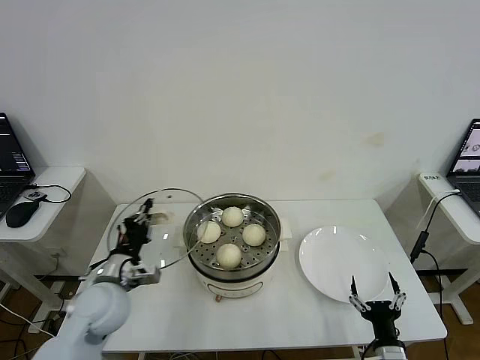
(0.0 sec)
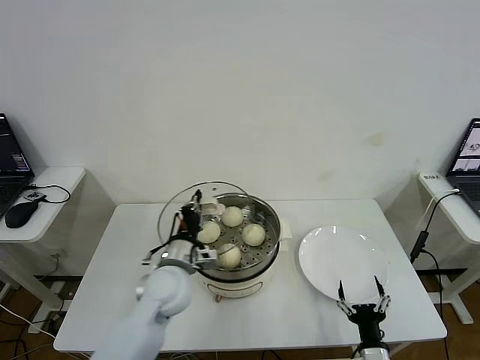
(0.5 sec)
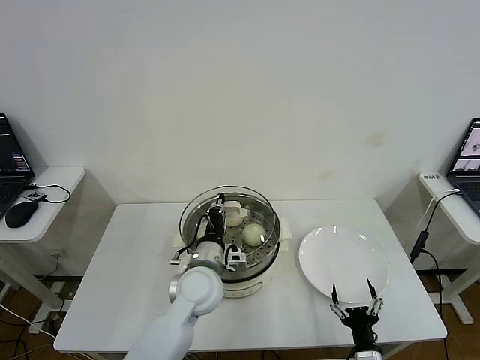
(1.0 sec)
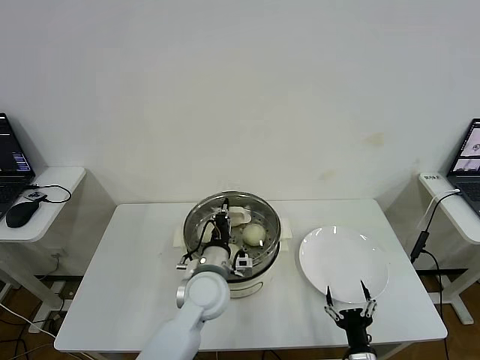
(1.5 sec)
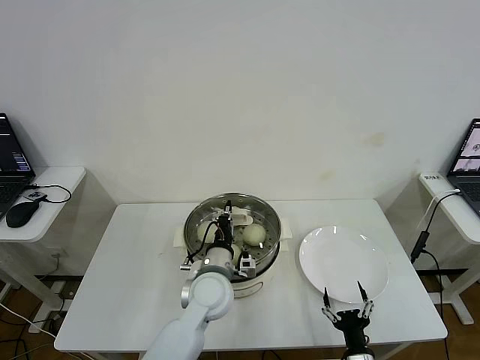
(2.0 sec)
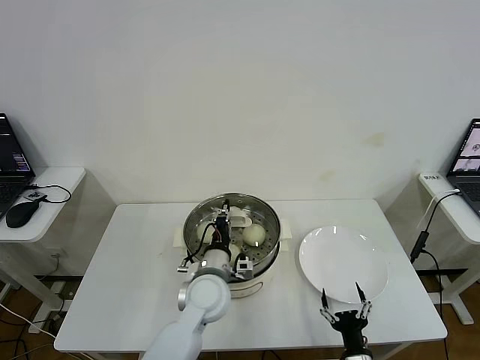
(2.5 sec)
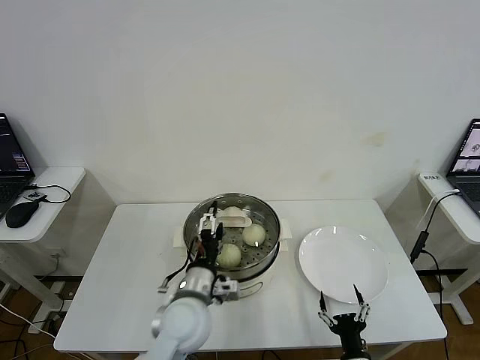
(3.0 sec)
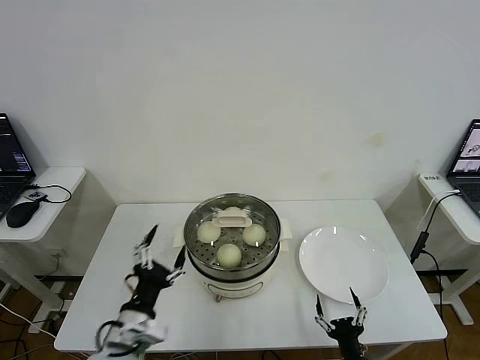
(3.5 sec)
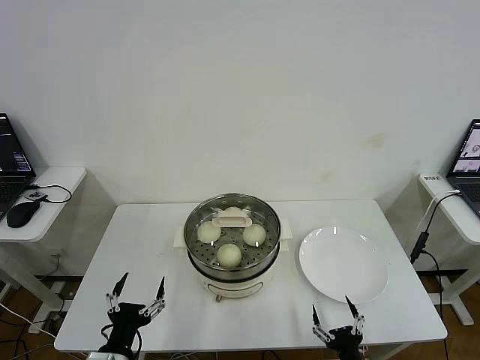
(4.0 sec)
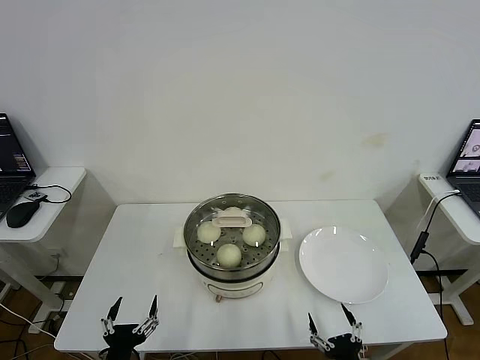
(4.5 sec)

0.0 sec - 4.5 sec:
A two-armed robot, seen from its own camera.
Step, 0.0 sec - 2.5 sec: Place the pot lid on the steamer with left gripper.
0.0 sec - 2.0 sec: The right gripper is displaced to the left by some 5 cm, while the left gripper shifts roughly 20 cm to the right.
2.0 sec - 4.5 sec: The left gripper heads backward and to the left, covering approximately 30 cm, and opens its fingers; the right gripper goes roughly 5 cm backward.
